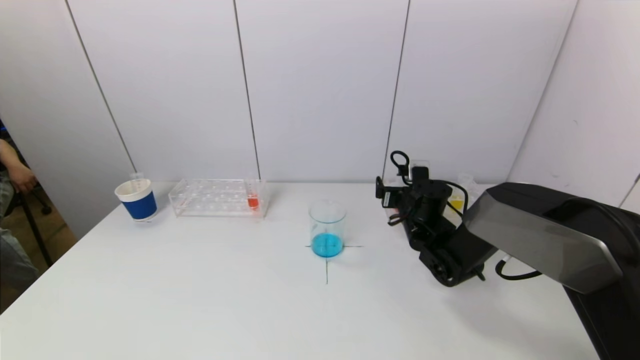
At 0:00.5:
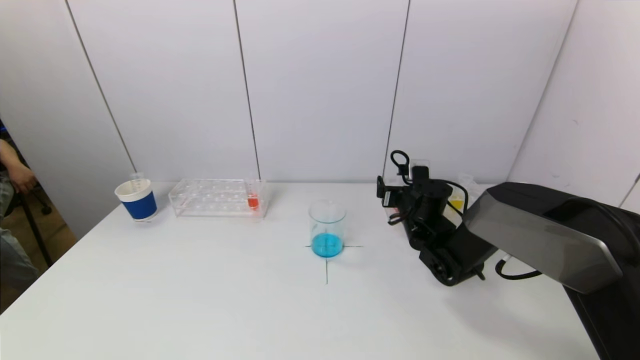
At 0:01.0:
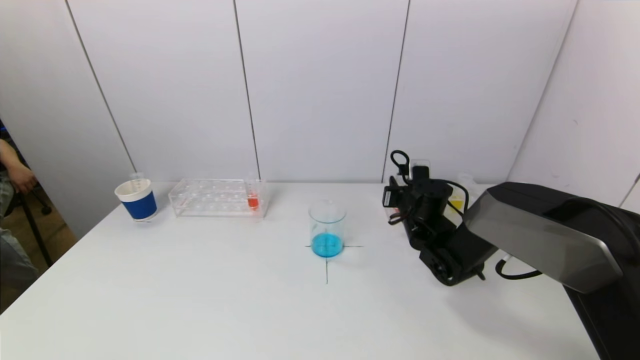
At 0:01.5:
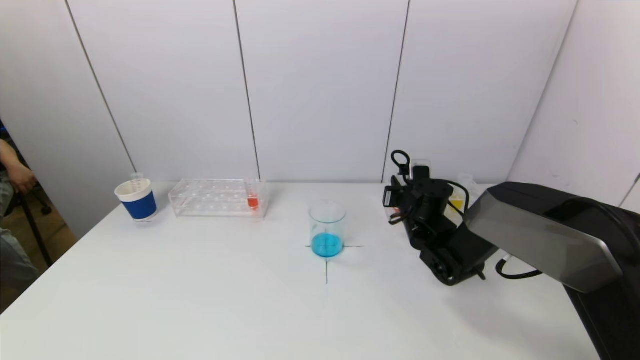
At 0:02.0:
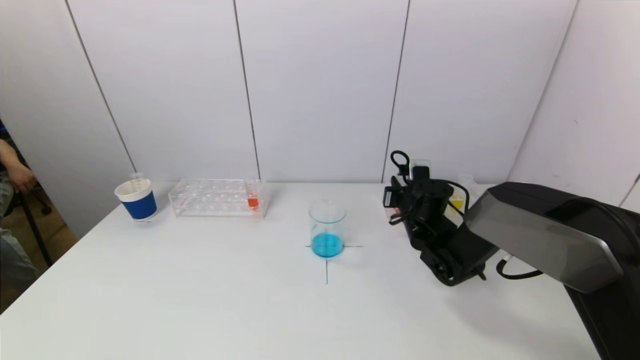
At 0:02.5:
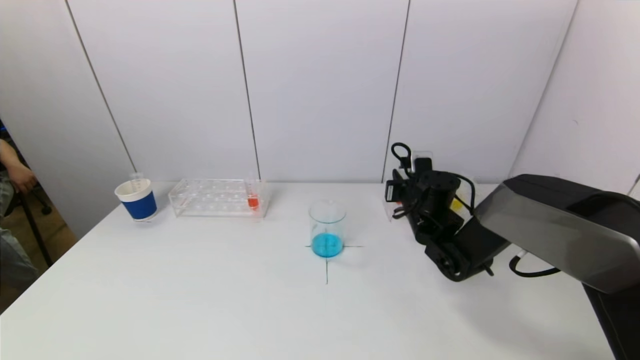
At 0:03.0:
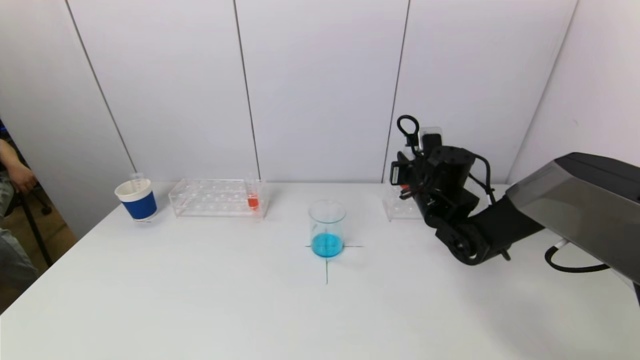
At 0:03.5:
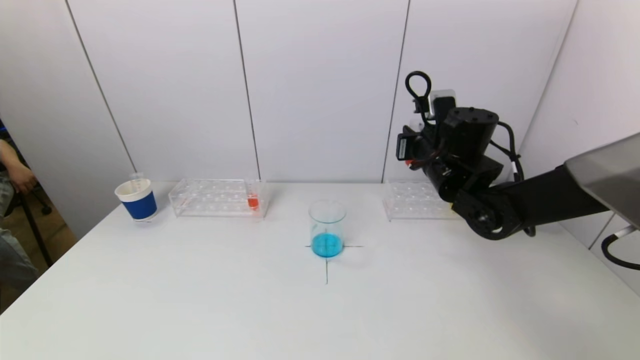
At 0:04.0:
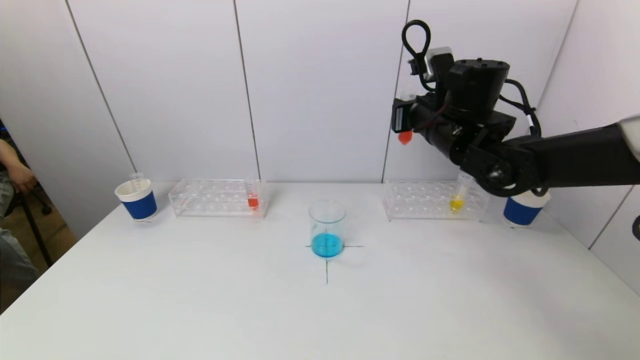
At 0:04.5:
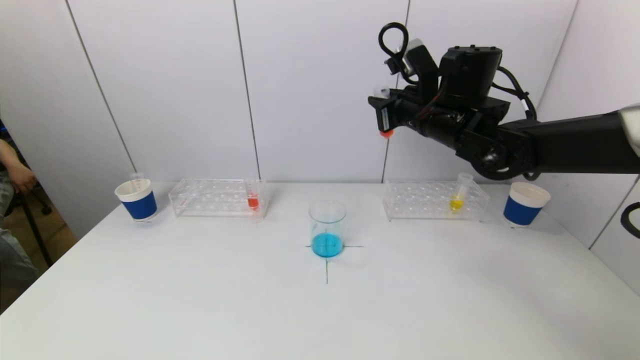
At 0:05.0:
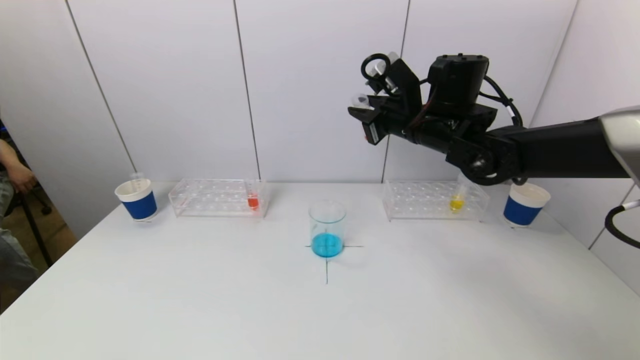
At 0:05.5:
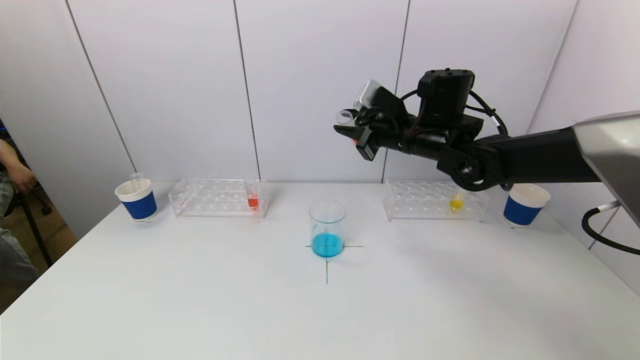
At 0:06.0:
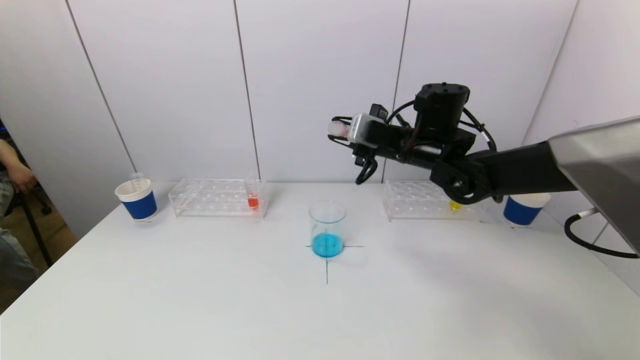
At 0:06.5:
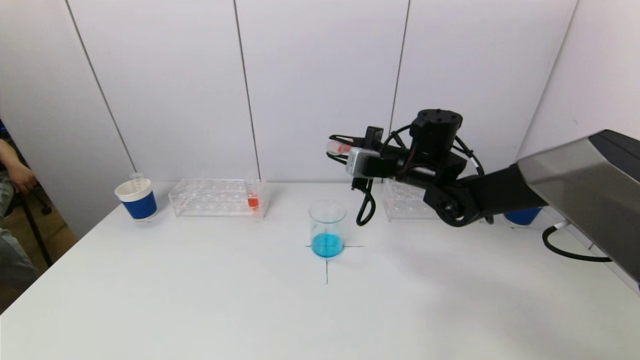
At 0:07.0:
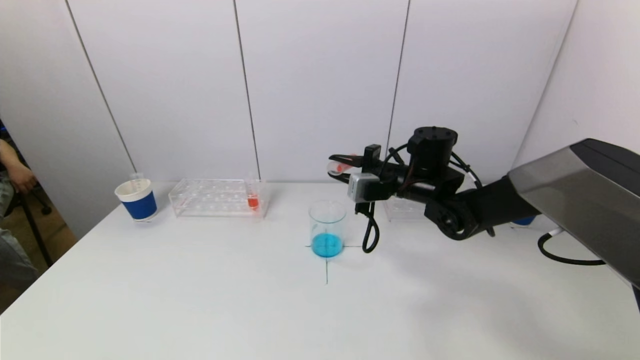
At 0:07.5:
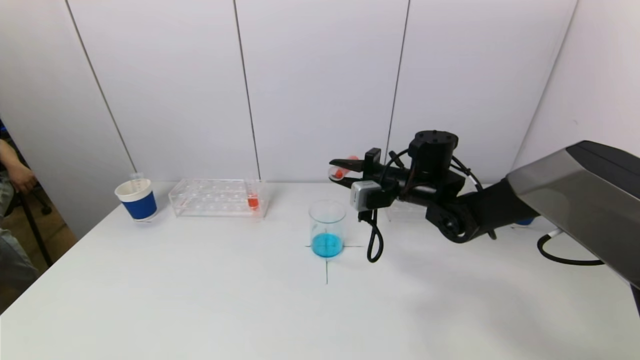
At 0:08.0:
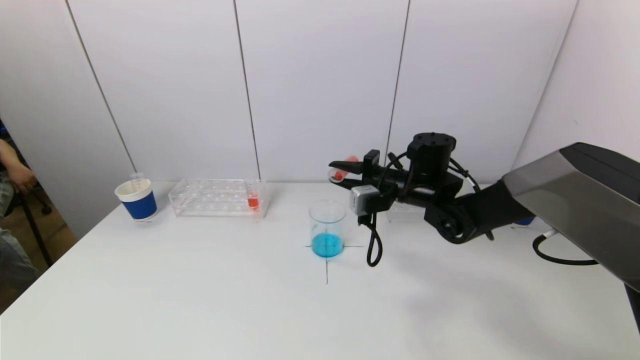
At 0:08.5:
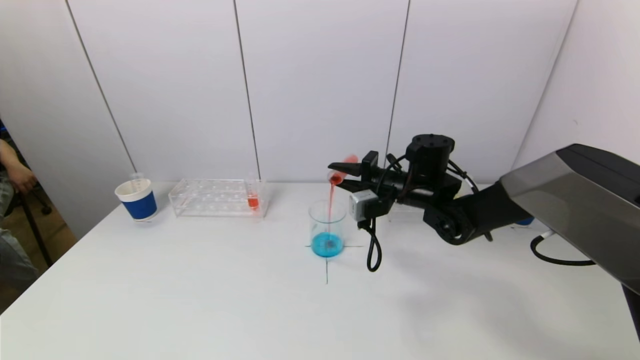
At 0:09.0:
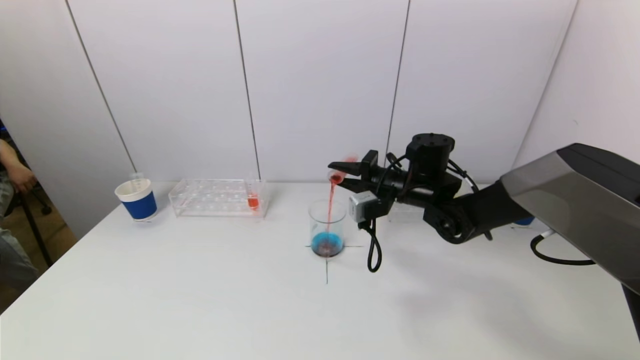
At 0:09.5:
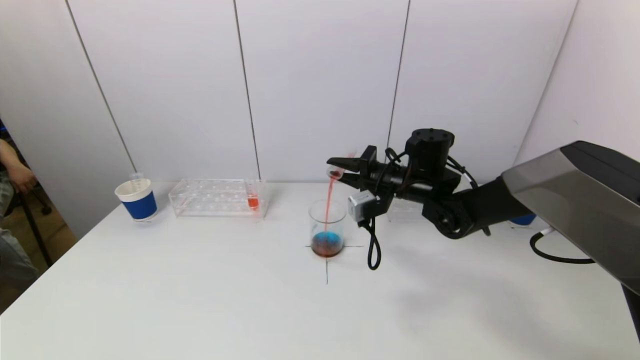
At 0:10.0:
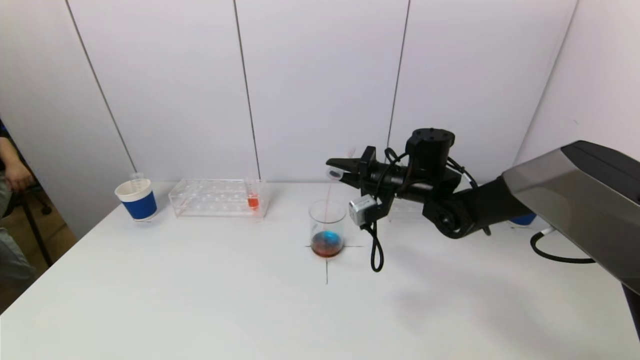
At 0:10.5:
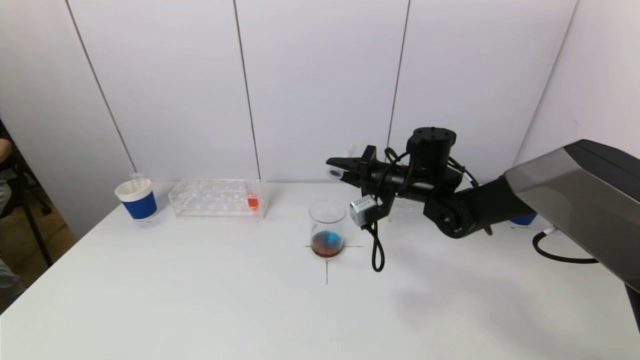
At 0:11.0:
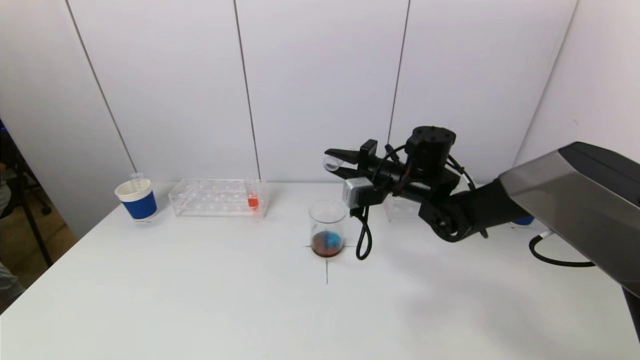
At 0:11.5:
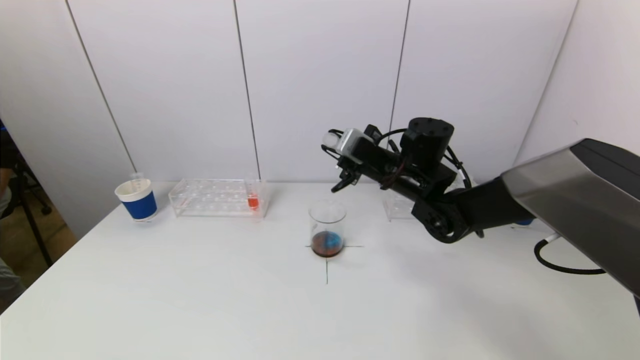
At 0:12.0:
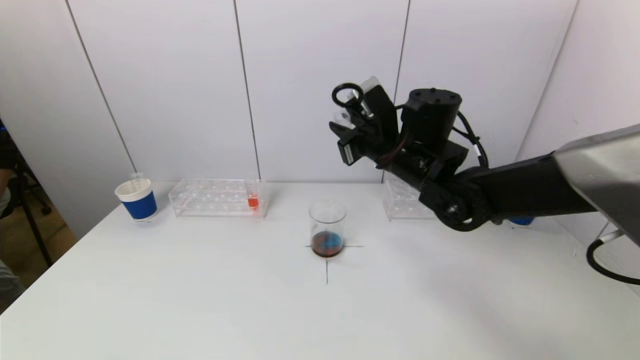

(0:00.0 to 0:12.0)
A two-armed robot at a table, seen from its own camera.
Task of the whole recording: pick up a test tube with pigment on left test tube rack and a test tube with pigment on right test tube rack by grippers and pour them into the beaker.
Step, 0:01.5 - 0:10.0: Pour the red reagent into the graduated cylinder with the right gripper.
0:00.0 - 0:02.0: The right gripper closes.
0:02.0 - 0:04.0: The right gripper moves upward, about 20 cm.
0:04.0 - 0:06.0: The right gripper shifts by roughly 5 cm.
0:06.0 - 0:08.0: The right gripper heads downward, covering about 10 cm.
0:10.0 - 0:12.0: The right gripper heads upward, covering roughly 10 cm.

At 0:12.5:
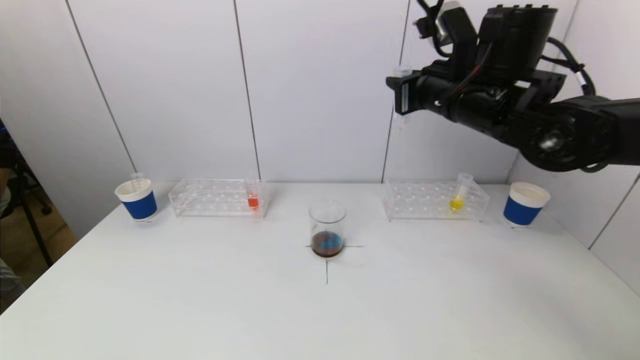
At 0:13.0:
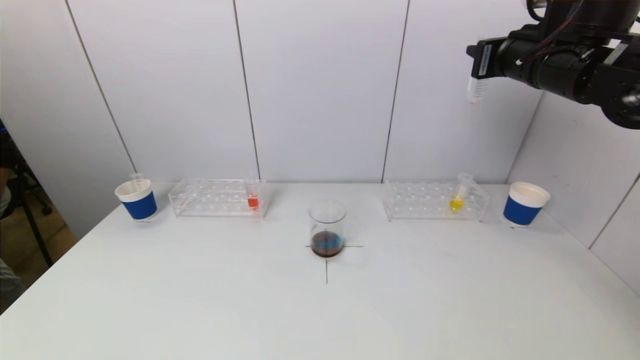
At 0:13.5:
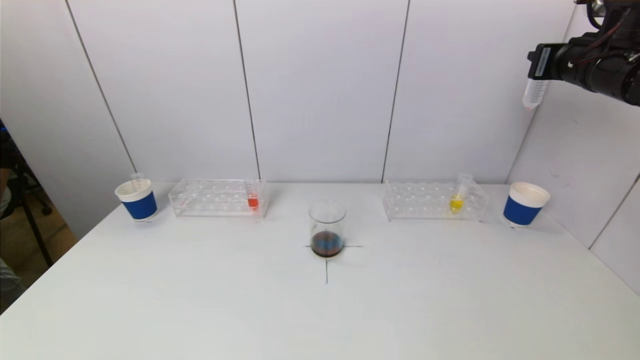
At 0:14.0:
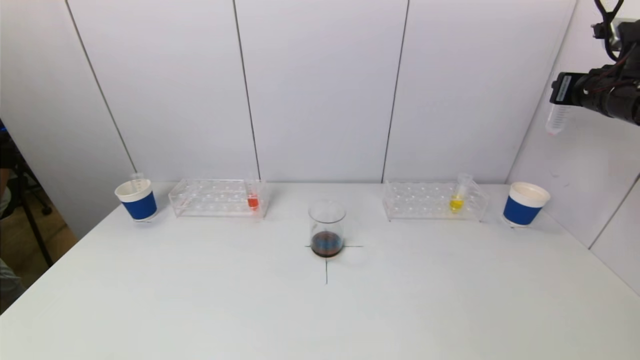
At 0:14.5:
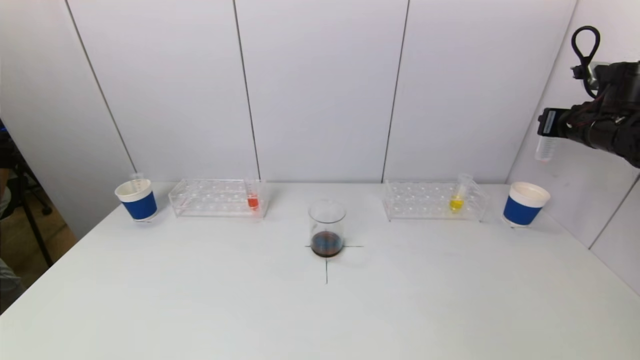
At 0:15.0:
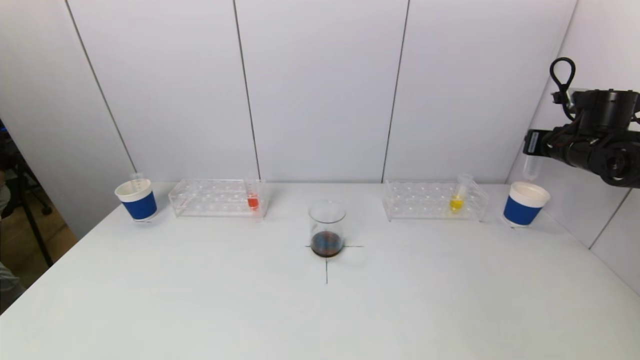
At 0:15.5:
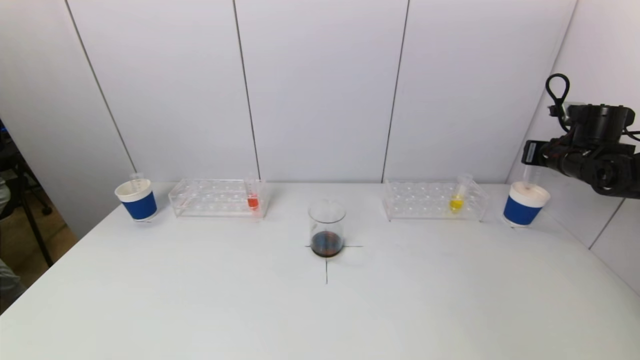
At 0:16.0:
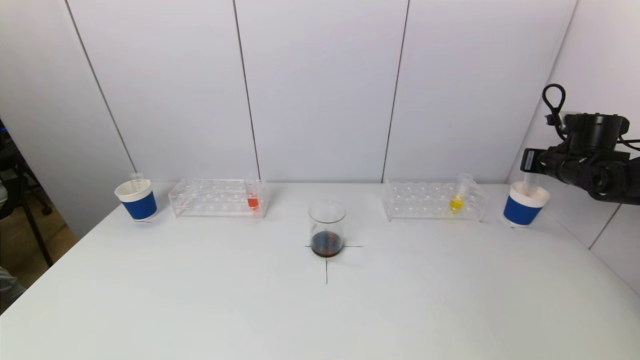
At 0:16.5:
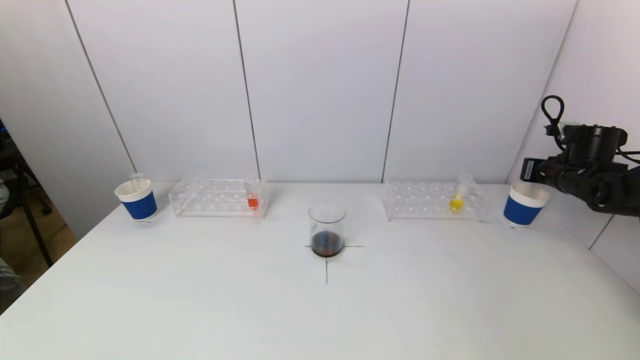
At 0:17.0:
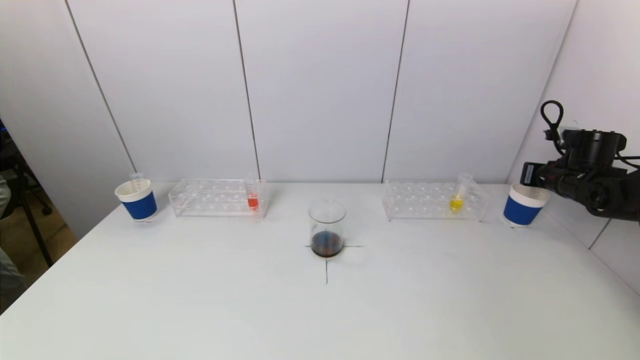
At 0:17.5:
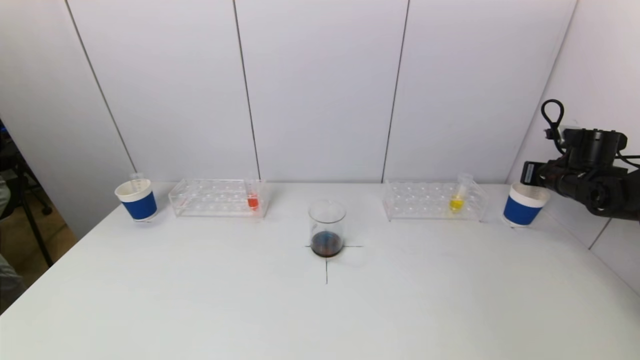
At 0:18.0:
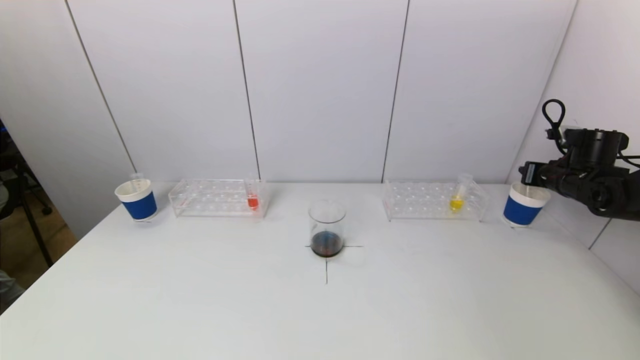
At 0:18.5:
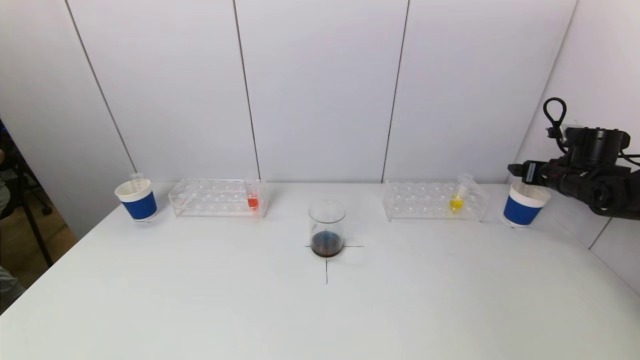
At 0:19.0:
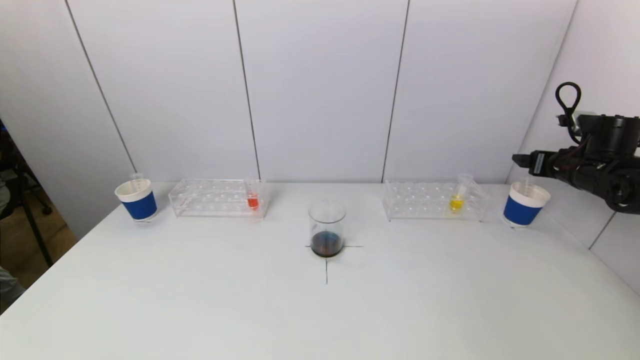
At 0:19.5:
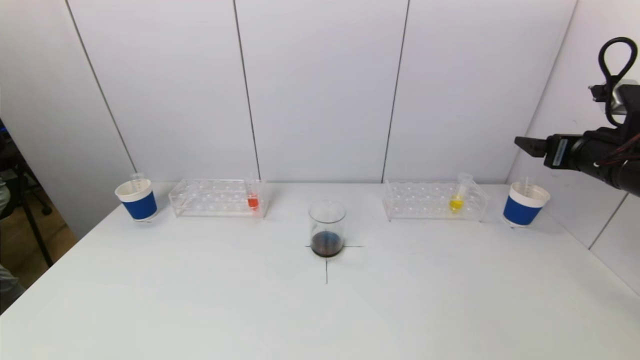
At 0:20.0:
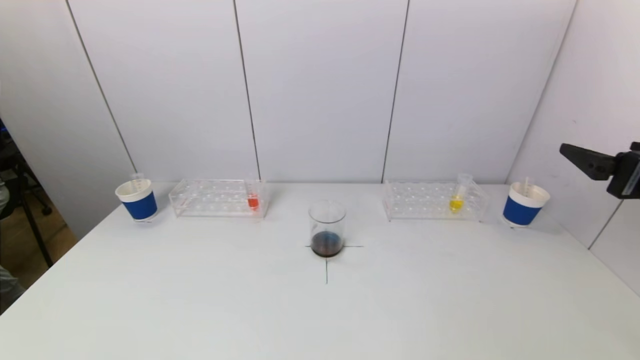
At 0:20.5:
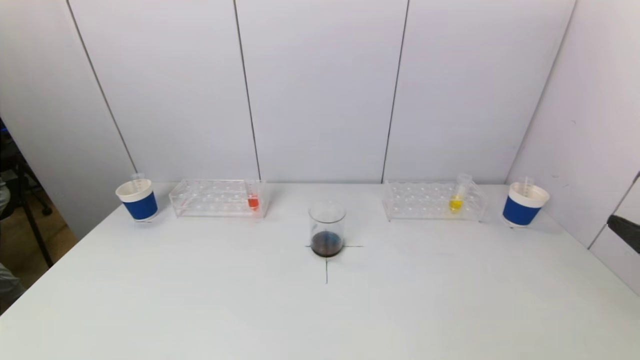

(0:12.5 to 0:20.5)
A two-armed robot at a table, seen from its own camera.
Task of the whole recording: pick up a test tube with pigment on left test tube rack and a test tube with pigment on right test tube rack by grippers and pour them into the beaker.
Step, 0:12.5 - 0:18.0: Place the test tube into the paper cup with the right gripper.
0:12.5 - 0:14.5: The right gripper moves to the right, approximately 25 cm.
0:14.5 - 0:16.5: The right gripper is displaced downward by some 10 cm.
0:16.5 - 0:18.5: The right gripper opens its fingers.
0:18.5 - 0:20.5: The right gripper heads backward, covering roughly 35 cm.
